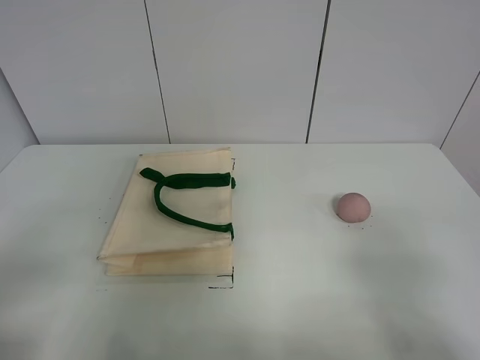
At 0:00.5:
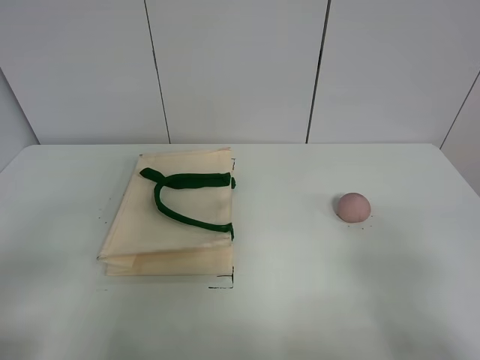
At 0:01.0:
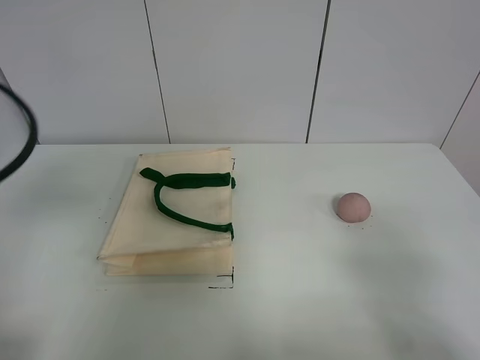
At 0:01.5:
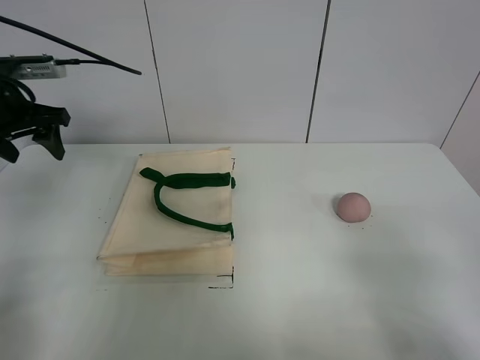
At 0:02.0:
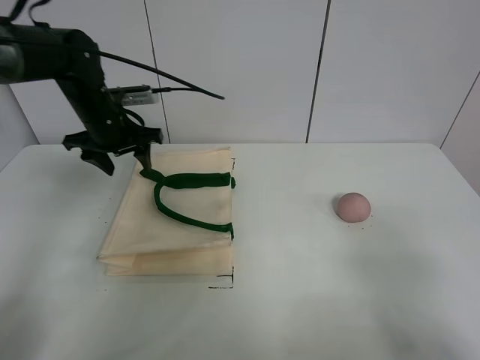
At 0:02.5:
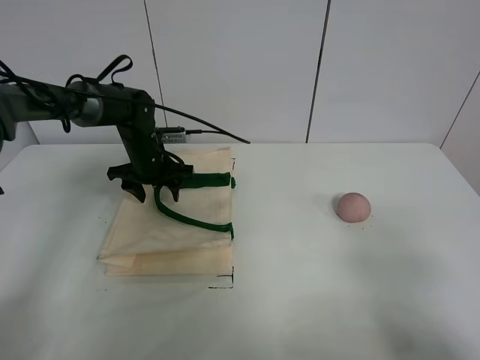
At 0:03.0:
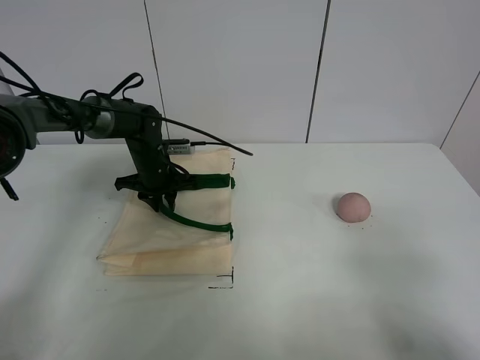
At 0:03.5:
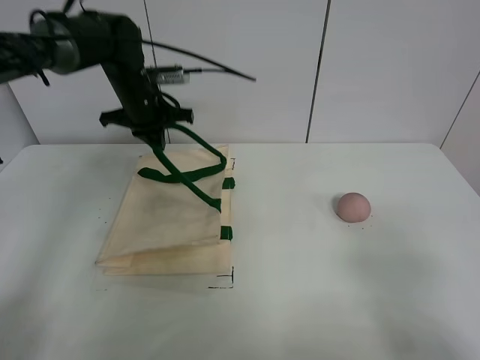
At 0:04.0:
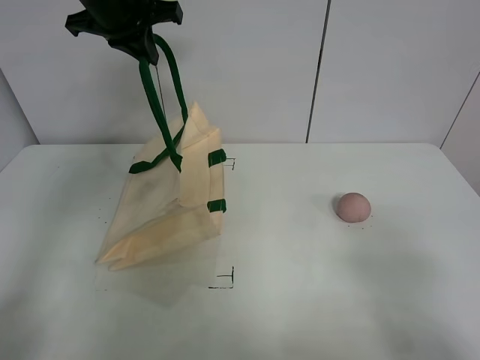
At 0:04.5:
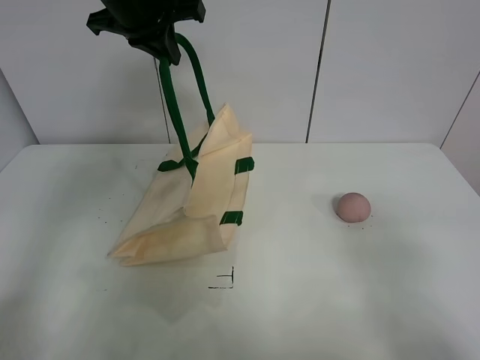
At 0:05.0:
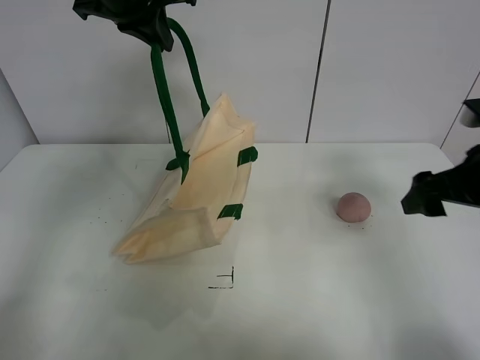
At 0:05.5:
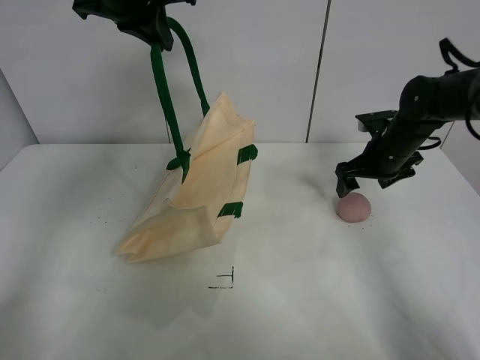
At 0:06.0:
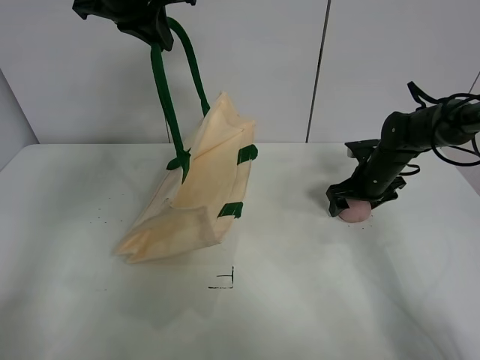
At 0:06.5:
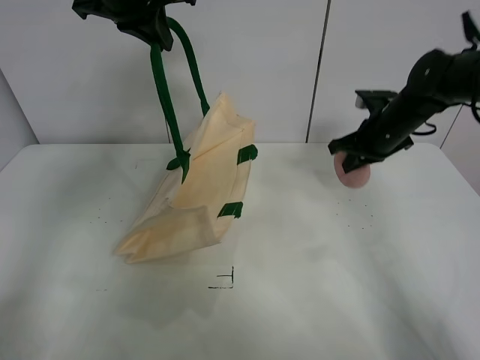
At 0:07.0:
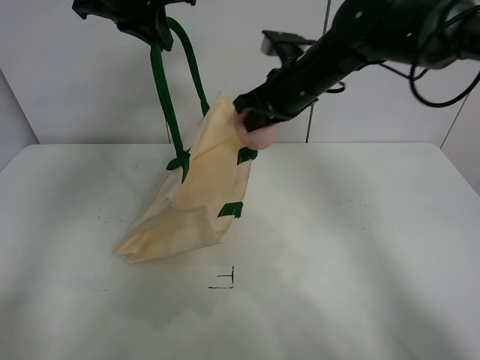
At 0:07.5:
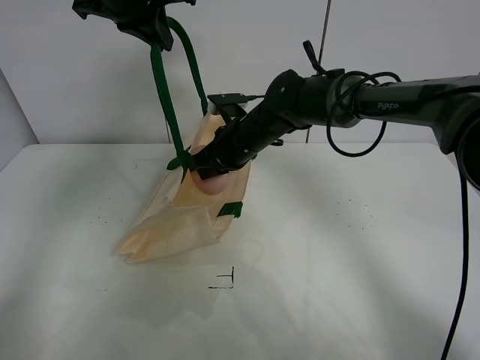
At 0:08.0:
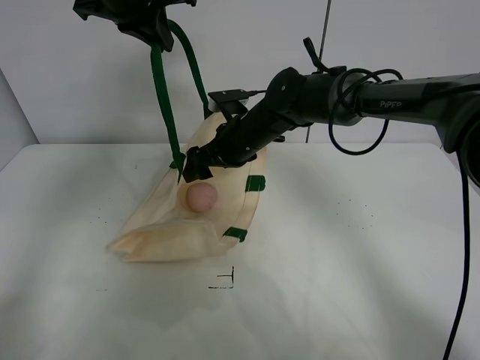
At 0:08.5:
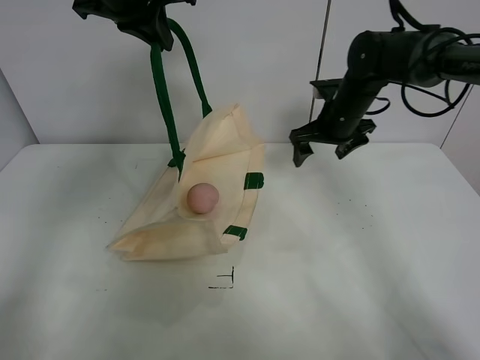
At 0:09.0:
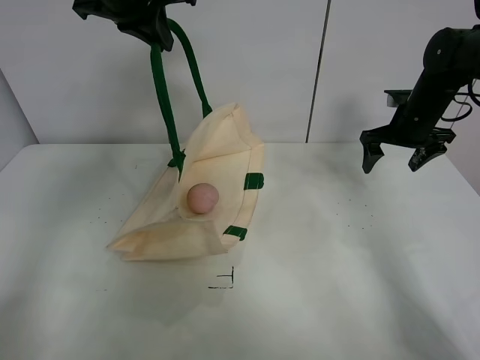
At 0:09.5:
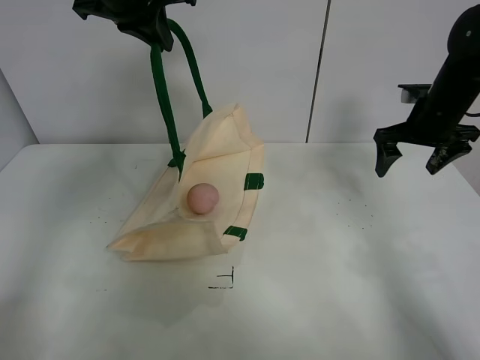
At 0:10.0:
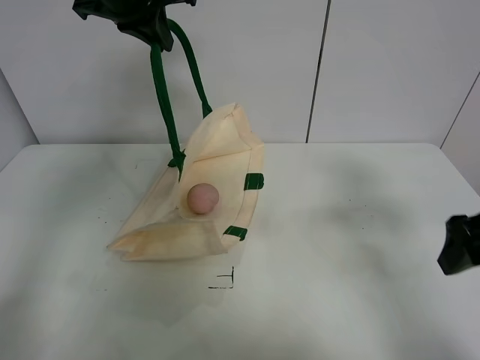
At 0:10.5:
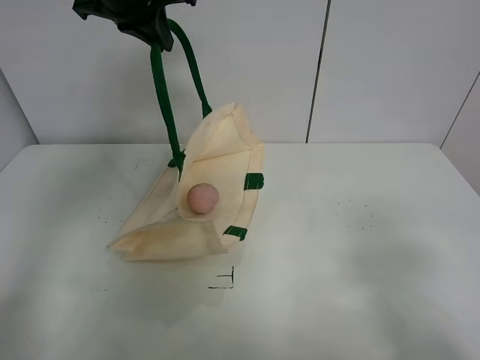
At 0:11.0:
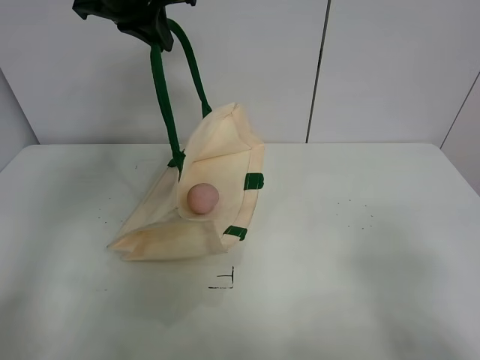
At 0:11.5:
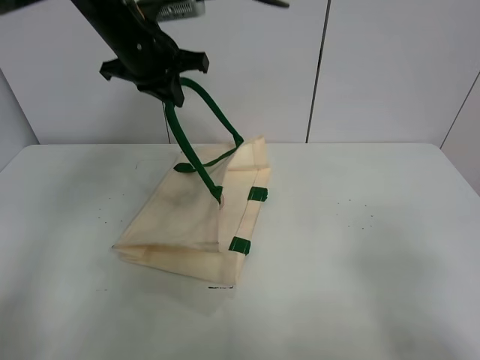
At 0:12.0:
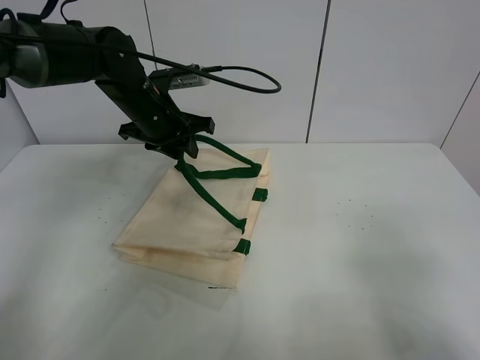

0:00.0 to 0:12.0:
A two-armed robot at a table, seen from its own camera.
Task of the whole recording: open the white linen bag and put the peach in the bag.
Step, 0:00.0 to 0:04.0: Lift the handbag with left gripper.
Step, 0:04.5 to 0:06.0: Grasp the peach with right gripper.
Step, 0:06.5 to 0:08.0: Place the peach in the handbag with right gripper.
0:00.0 to 0:02.0: The left gripper moves forward, roughly 40 cm.
0:02.0 to 0:04.0: The left gripper shifts about 15 cm upward, and closes its fingers.
0:04.0 to 0:06.0: The right gripper is displaced forward and downward by roughly 50 cm.
0:06.0 to 0:08.0: The right gripper shifts approximately 25 cm to the left, and closes, then opens again.
0:08.0 to 0:10.0: The right gripper travels to the right and backward by approximately 35 cm.
0:10.0 to 0:12.0: The left gripper is displaced downward by approximately 20 cm, and opens its fingers; the right gripper heads backward, covering approximately 15 cm.

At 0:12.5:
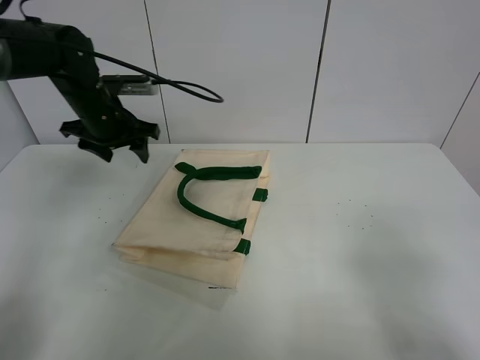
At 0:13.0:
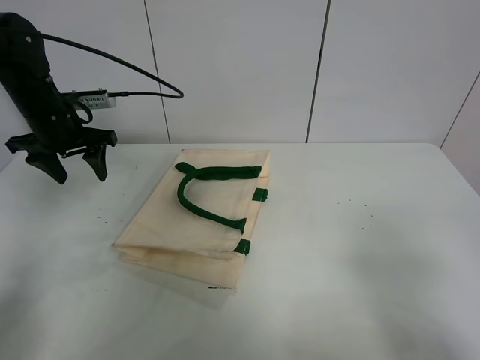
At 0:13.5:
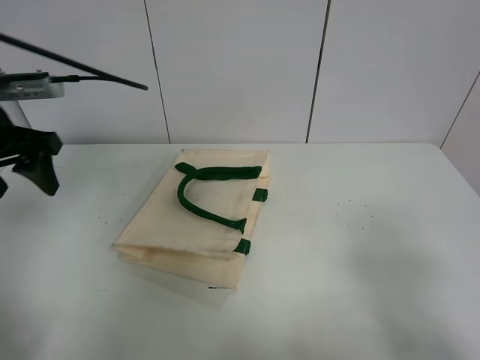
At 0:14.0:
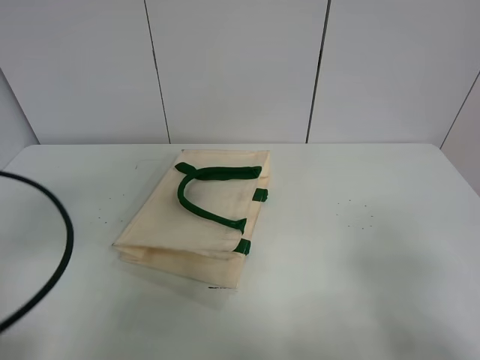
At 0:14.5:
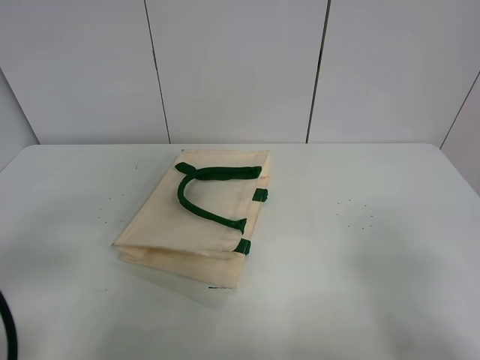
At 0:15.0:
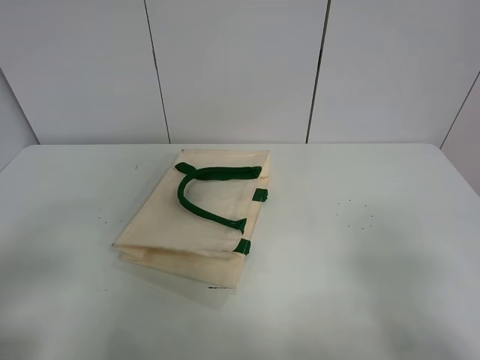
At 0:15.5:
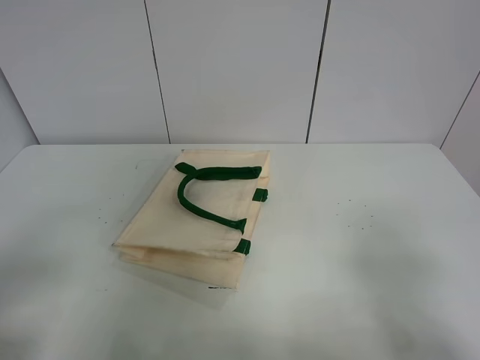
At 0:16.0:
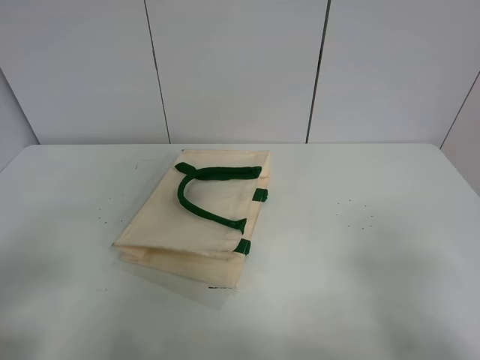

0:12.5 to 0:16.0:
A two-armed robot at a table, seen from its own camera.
Task of the whole recording: open the white linen bag and put the peach in the bag.
0:12.5 to 0:14.5: The left gripper goes about 35 cm backward.

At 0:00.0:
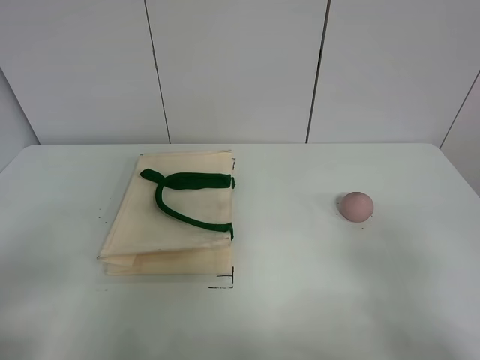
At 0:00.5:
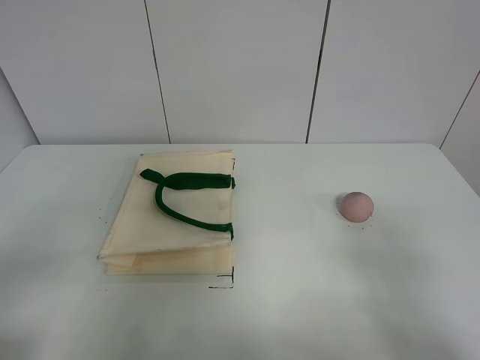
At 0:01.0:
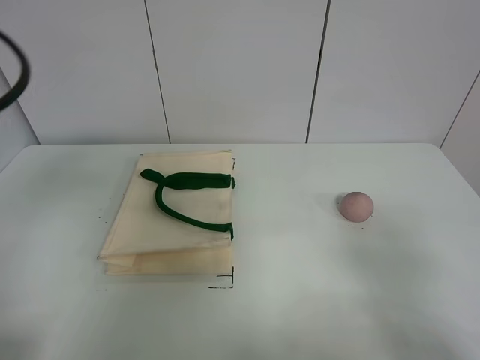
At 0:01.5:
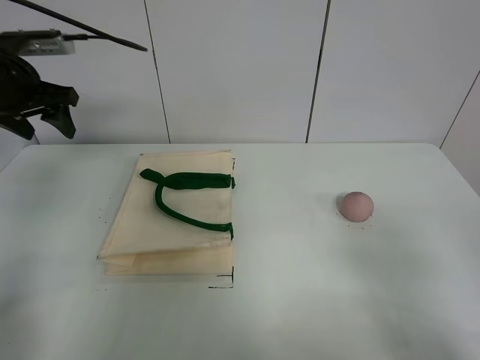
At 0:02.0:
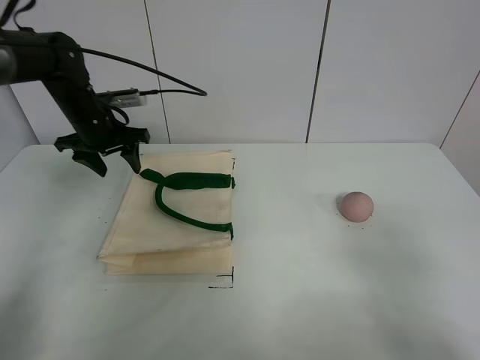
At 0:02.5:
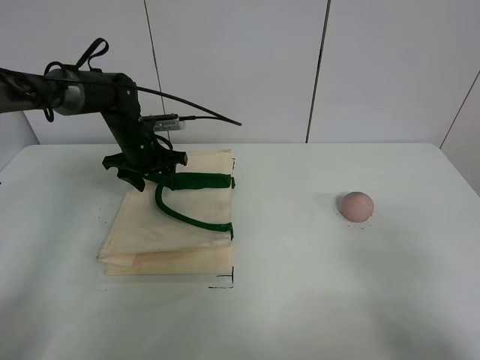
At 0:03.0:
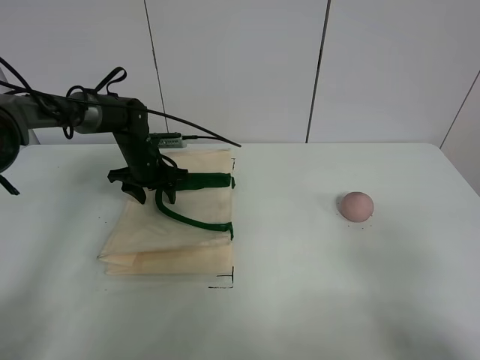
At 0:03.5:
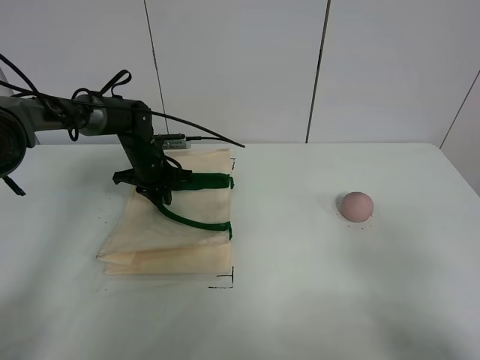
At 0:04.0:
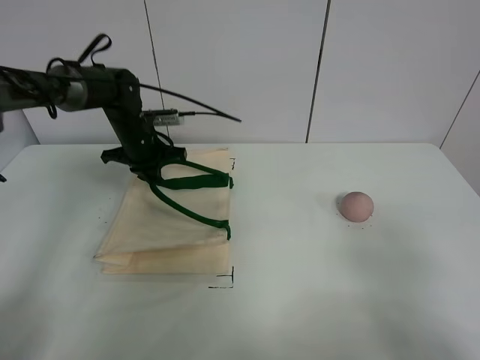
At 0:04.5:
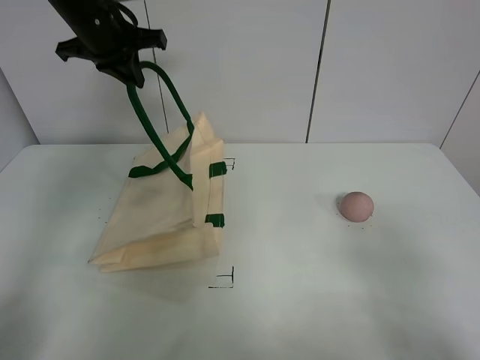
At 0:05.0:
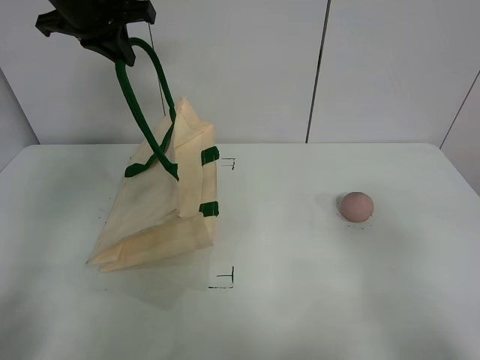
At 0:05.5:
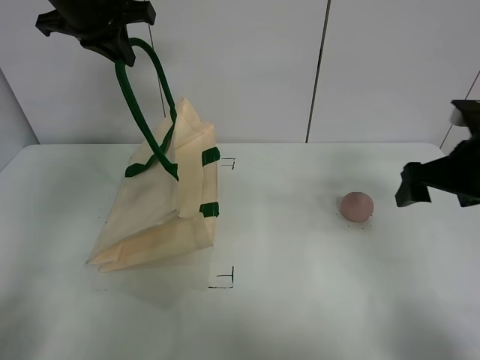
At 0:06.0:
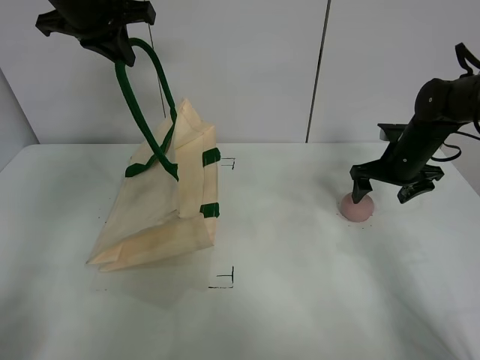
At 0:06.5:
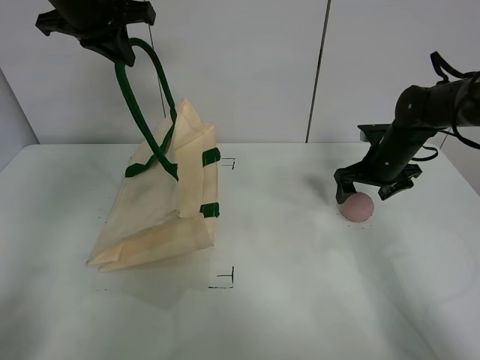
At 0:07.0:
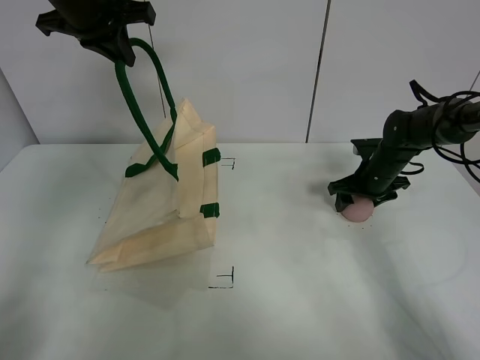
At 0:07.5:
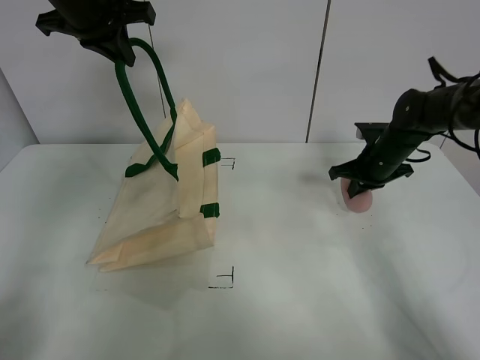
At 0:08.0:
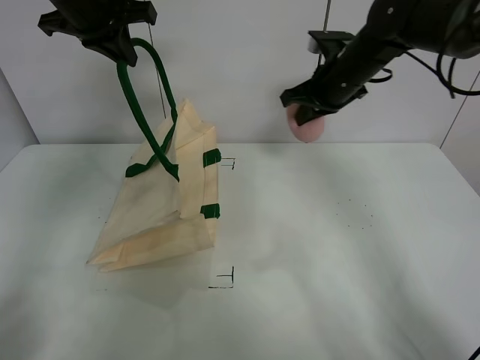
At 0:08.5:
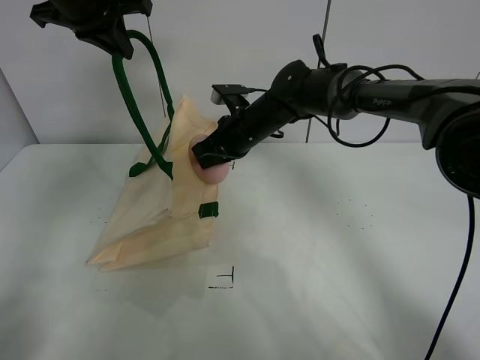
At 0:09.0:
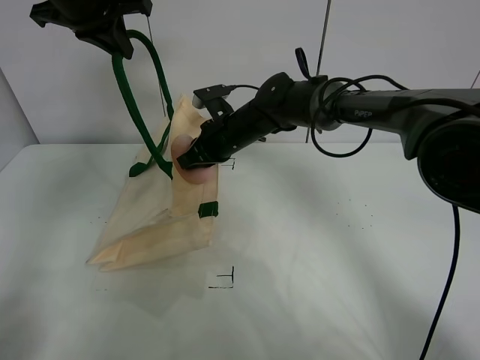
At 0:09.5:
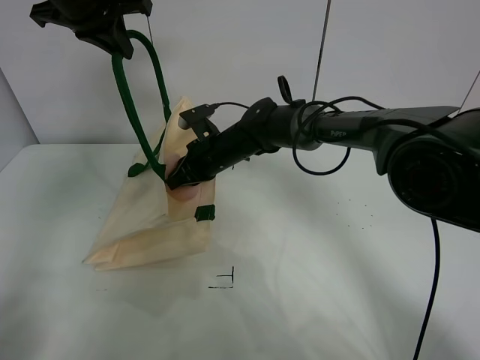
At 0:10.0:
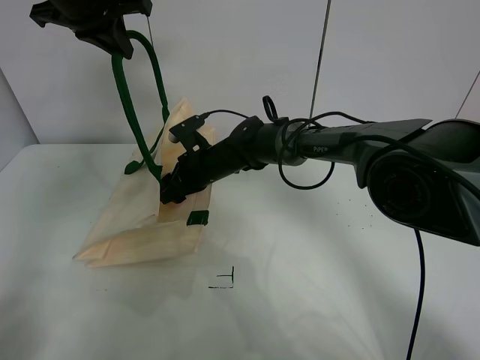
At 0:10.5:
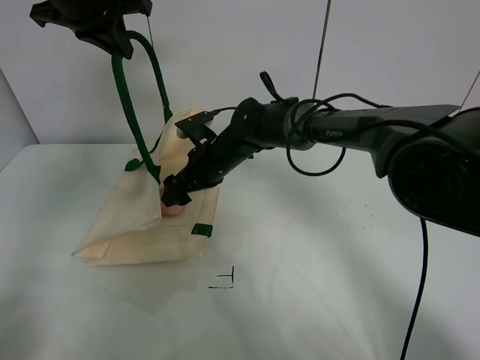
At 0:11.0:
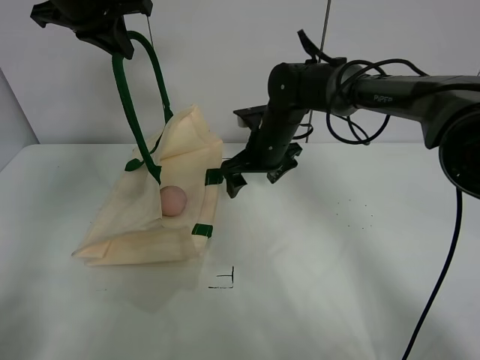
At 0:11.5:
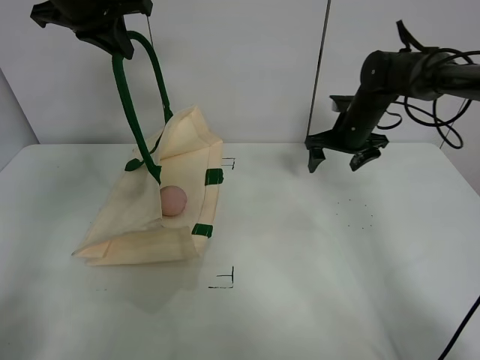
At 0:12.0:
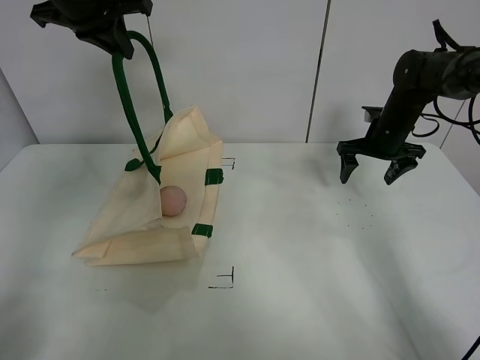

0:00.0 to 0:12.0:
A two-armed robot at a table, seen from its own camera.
Task of the whole recording: open the white linen bag and put the peach in the bag.
Step, 0:00.0 to 0:05.0: Lift the handbag with left gripper.
Step, 0:05.5 to 0:07.0: Grasp the peach with right gripper.
Step, 0:07.5 to 0:10.0: Place the peach in the handbag with right gripper.
0:00.0 to 0:02.0: The left gripper shifts about 40 cm forward.
0:02.0 to 0:04.0: The left gripper goes downward and returns, about 10 cm each way, and closes its fingers.
0:04.0 to 0:06.0: The right gripper moves forward, some 40 cm, while the left gripper is displaced upward by about 25 cm.
0:06.0 to 0:08.0: The right gripper travels to the left and upward by about 20 cm, and closes.
0:08.0 to 0:10.0: The right gripper goes some 25 cm to the left and downward, and opens its fingers.
0:10.0 to 0:12.0: The right gripper heads to the right, covering some 30 cm.
